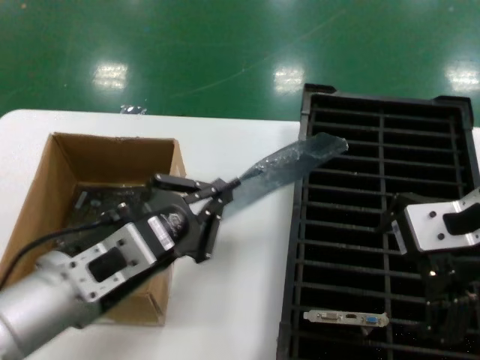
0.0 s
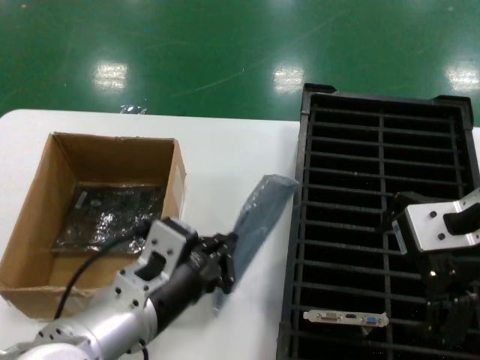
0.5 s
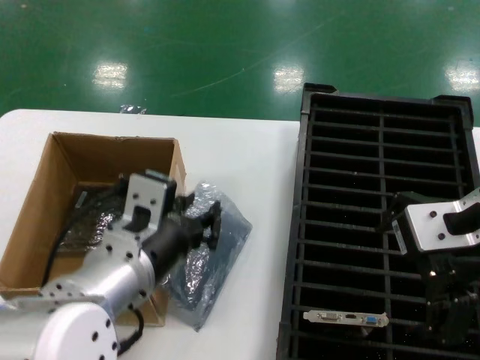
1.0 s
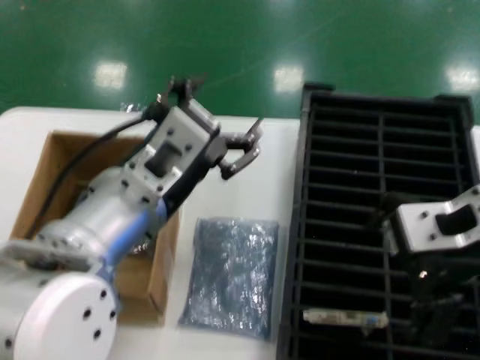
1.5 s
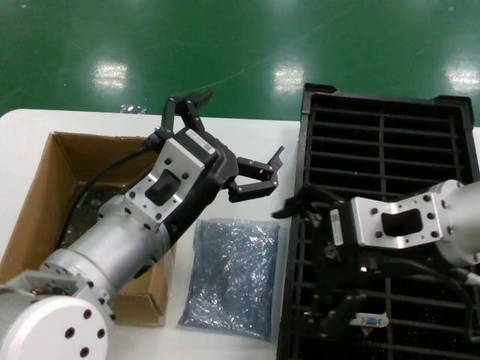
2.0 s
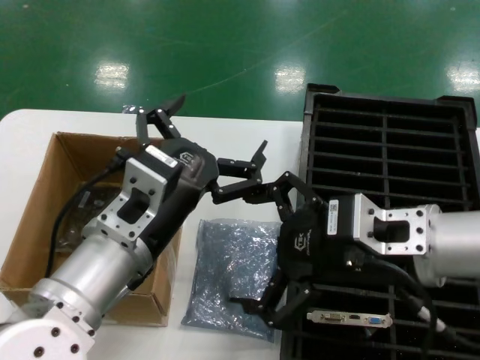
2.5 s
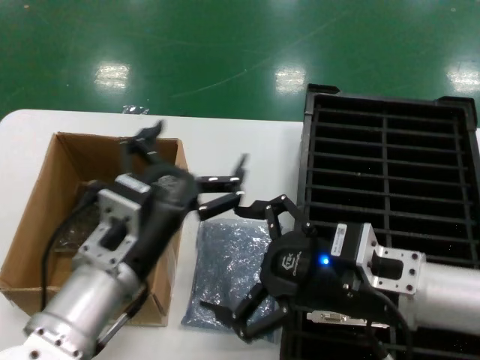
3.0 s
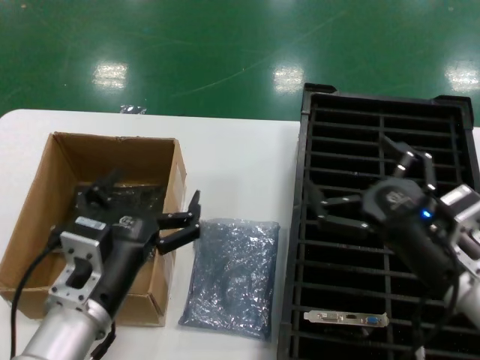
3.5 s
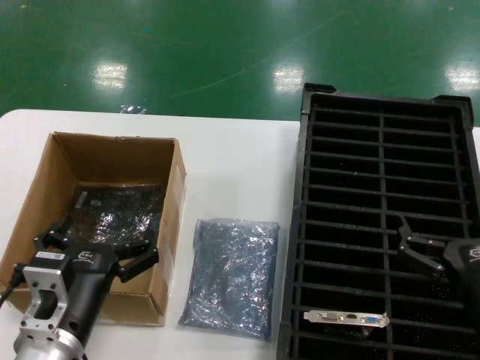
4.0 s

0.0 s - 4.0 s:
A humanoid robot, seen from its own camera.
Task of the whole recording: take out graphics card from box remove packaging put into black container.
0.0 s - 2.0 s: The left hand travels to the right by about 5 cm, and reaches roughly 5 cm upward, then returns.
2.0 s - 4.0 s: The right hand moves downward, about 25 cm; the left hand is displaced downward and to the left by about 20 cm.

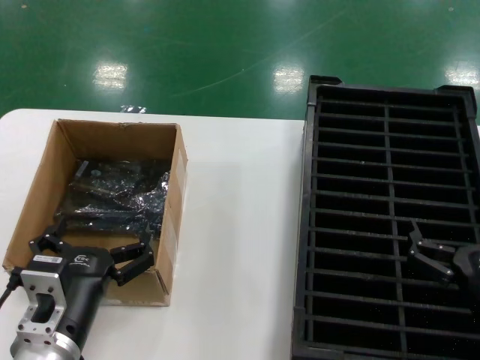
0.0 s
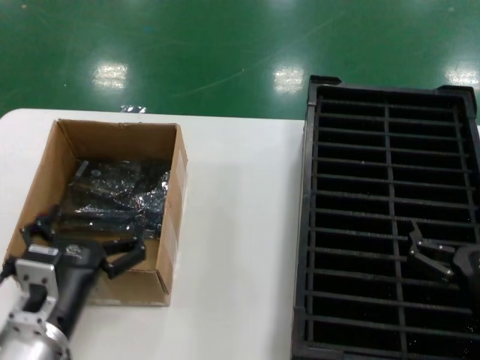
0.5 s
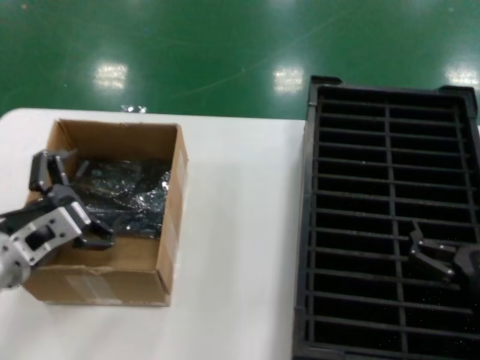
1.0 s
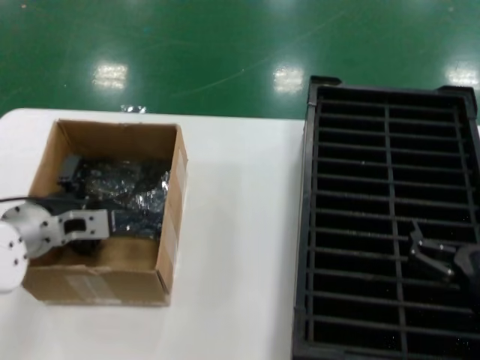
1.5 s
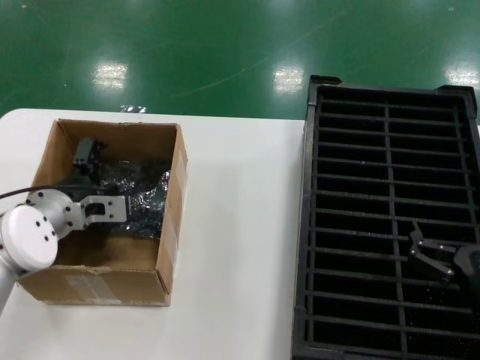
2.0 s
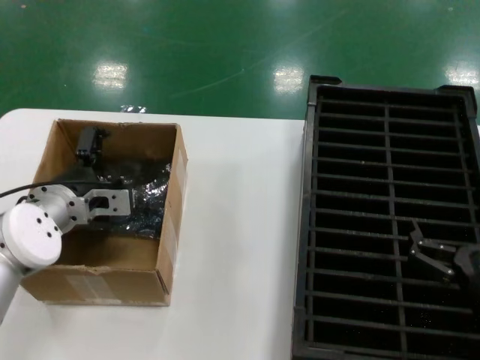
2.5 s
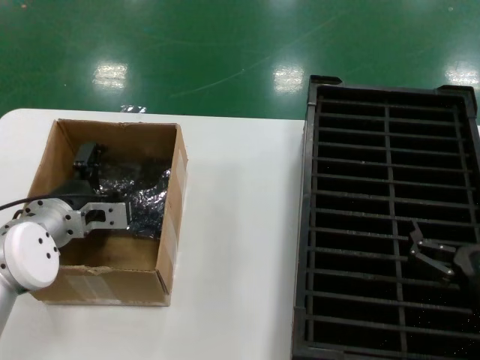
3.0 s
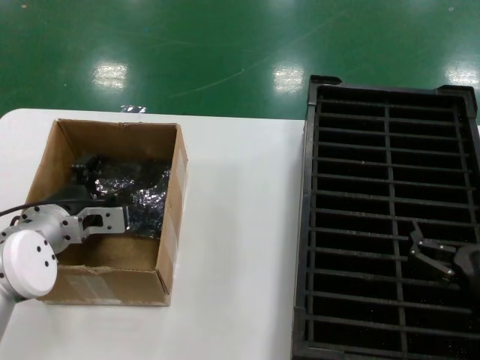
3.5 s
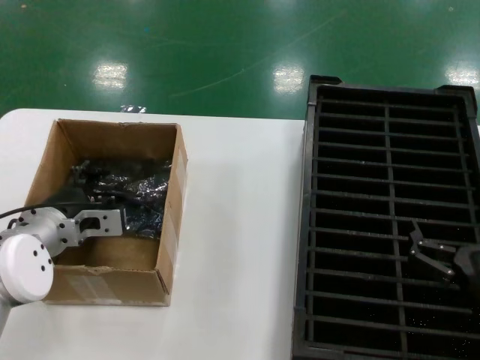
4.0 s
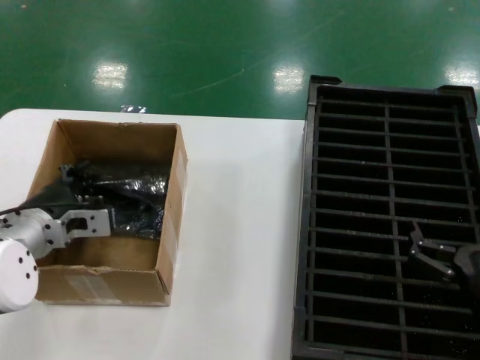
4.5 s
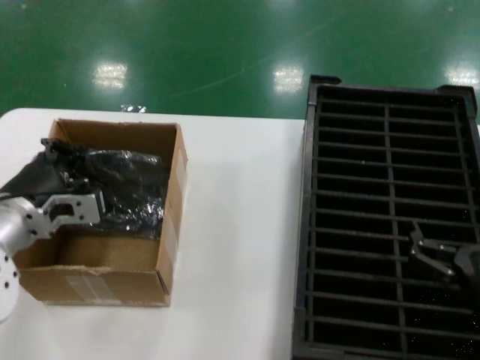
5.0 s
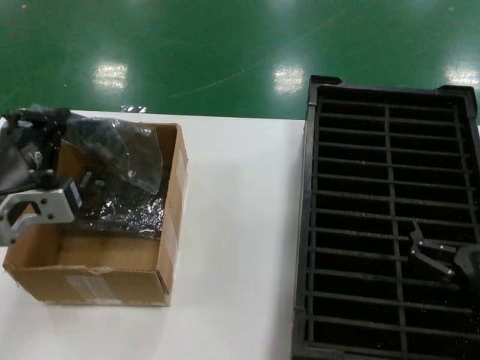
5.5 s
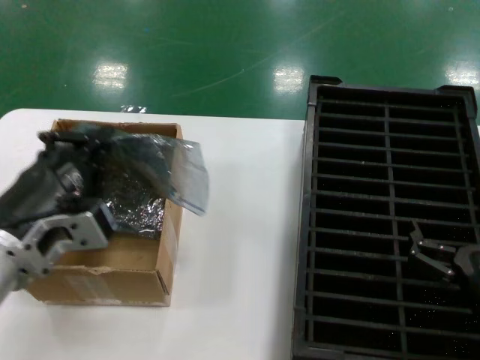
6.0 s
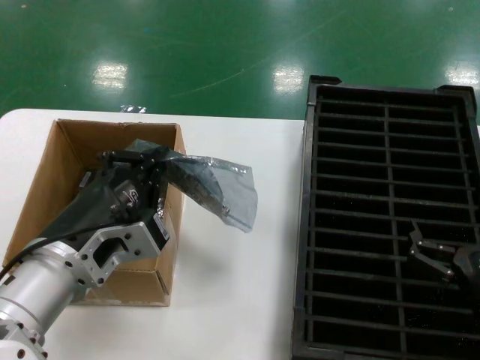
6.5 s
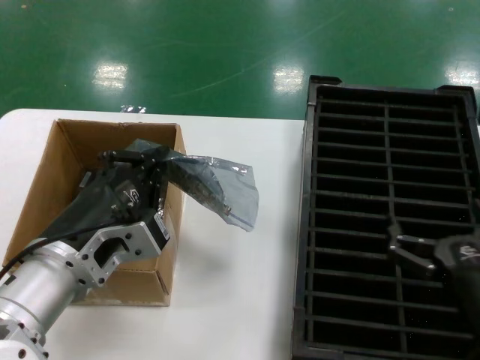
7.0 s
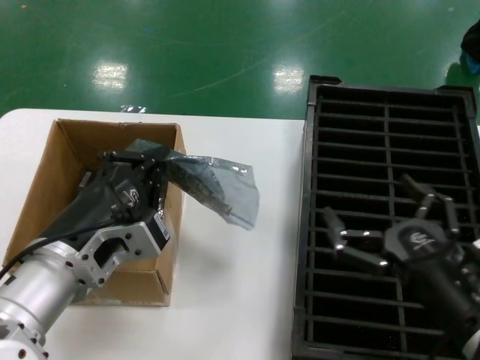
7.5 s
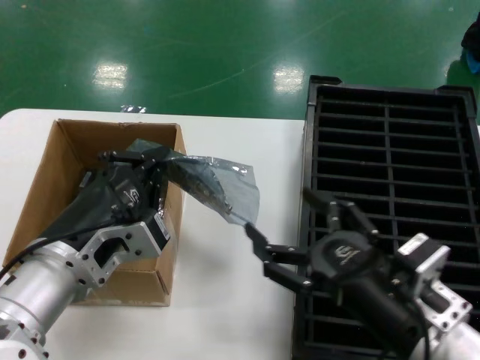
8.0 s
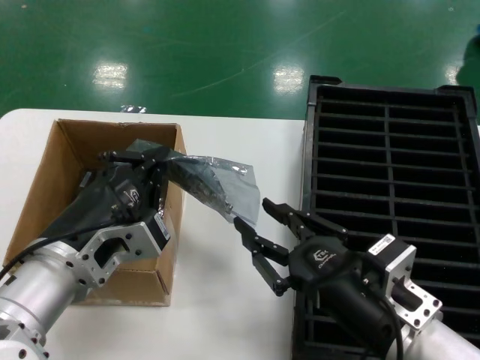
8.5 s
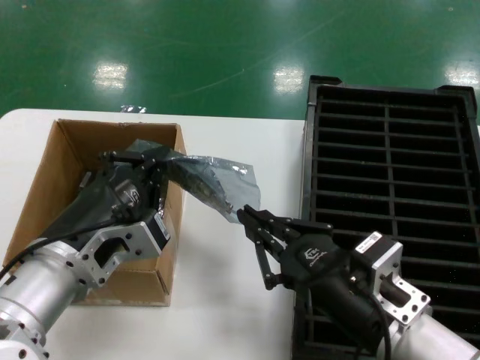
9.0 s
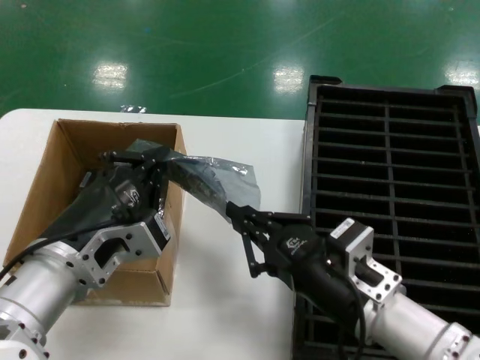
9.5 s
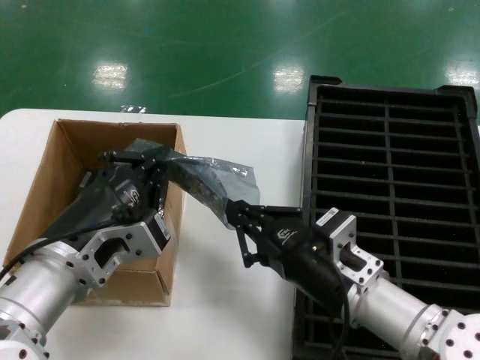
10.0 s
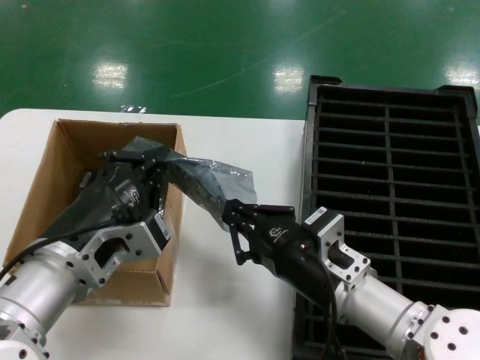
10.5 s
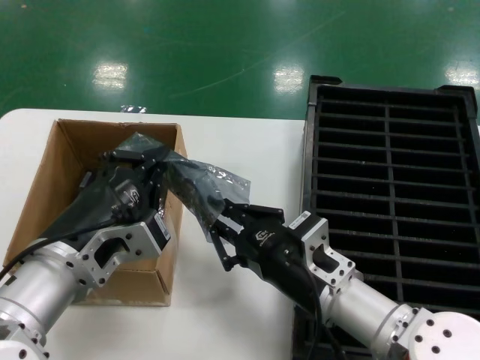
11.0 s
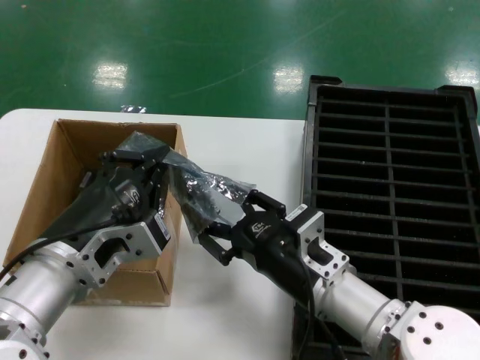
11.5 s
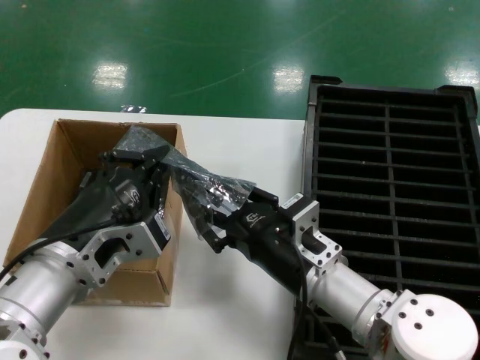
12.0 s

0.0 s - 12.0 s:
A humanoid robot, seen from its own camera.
Task of the whole recording: take out graphics card from box remove packaging put into black container.
Step, 0.0 s - 4.5 s: Grasp the bag.
Step, 5.0 s - 6.5 s: Lift the bag.
0.0 s - 2.0 s: The left hand moves forward, roughly 20 cm.
2.0 s - 4.0 s: The hands stay close to where they were, moving slightly.
4.0 s - 6.0 s: The left hand shifts about 20 cm backward and upward.
6.0 s - 8.0 s: The left hand ends up approximately 5 cm from where it was; the right hand heads to the left and upward, covering approximately 10 cm.
8.0 s - 10.0 s: The right hand is displaced forward and to the left by approximately 10 cm.
10.0 s - 12.0 s: The right hand ends up some 5 cm from where it was.

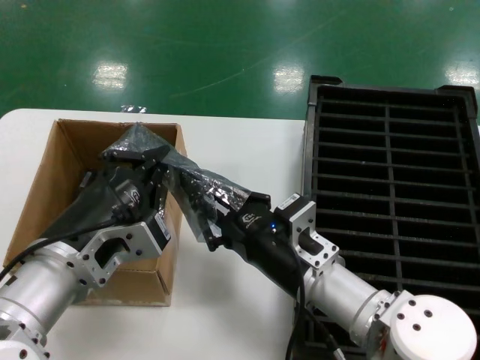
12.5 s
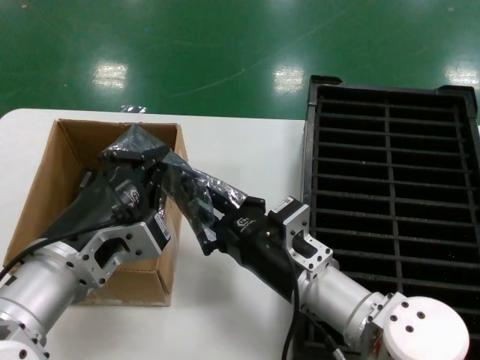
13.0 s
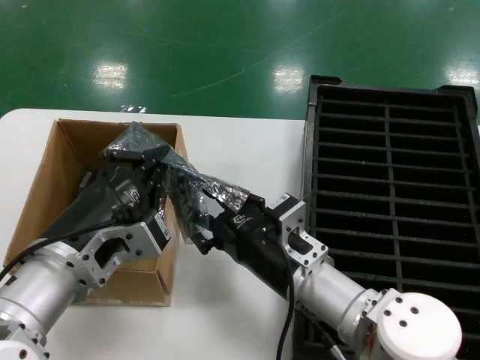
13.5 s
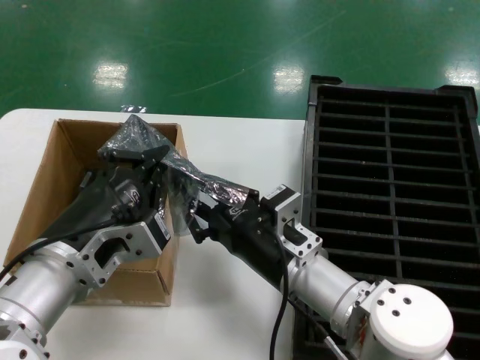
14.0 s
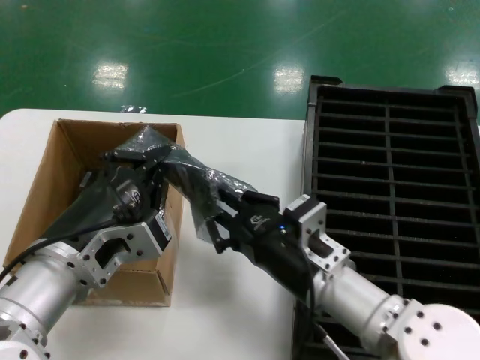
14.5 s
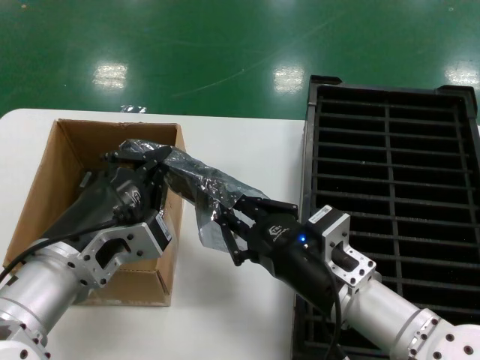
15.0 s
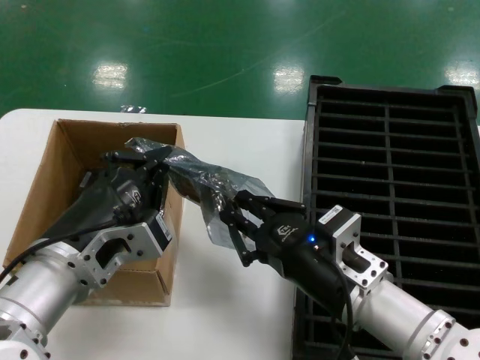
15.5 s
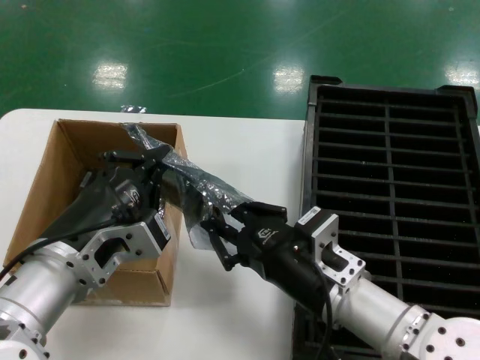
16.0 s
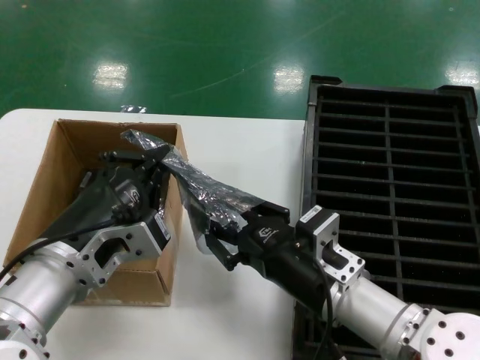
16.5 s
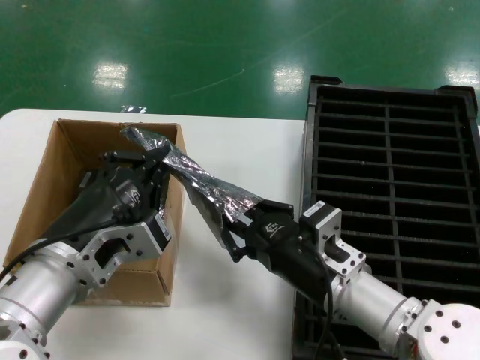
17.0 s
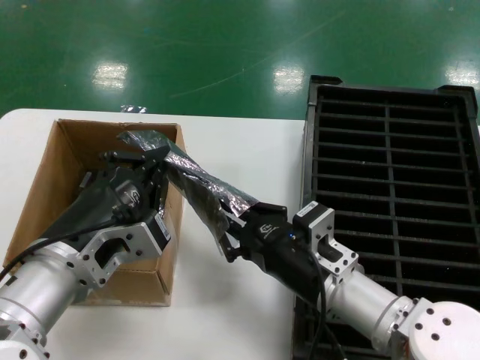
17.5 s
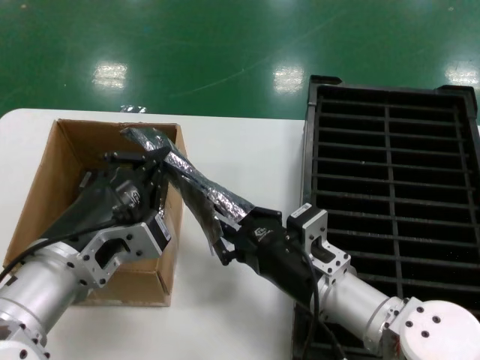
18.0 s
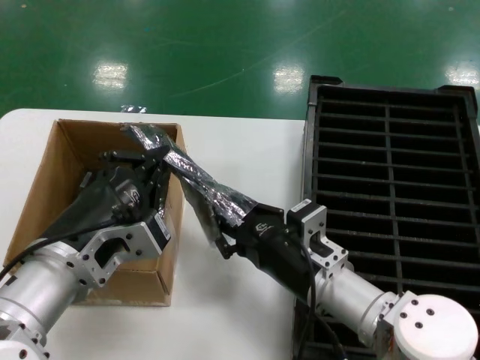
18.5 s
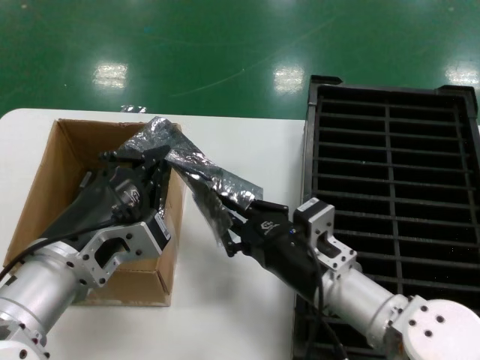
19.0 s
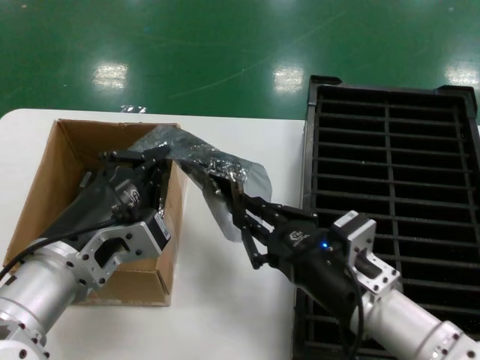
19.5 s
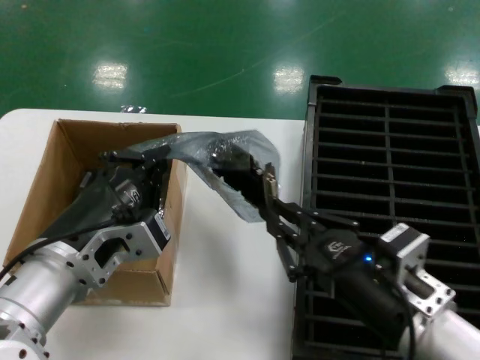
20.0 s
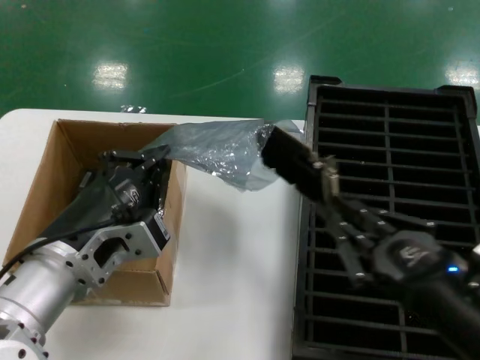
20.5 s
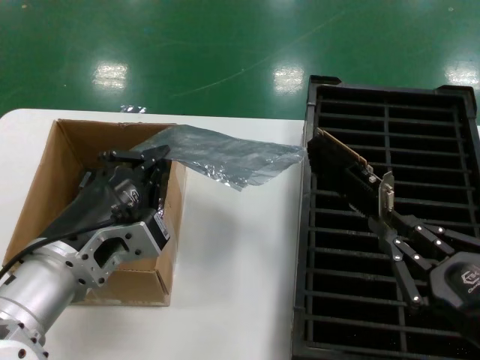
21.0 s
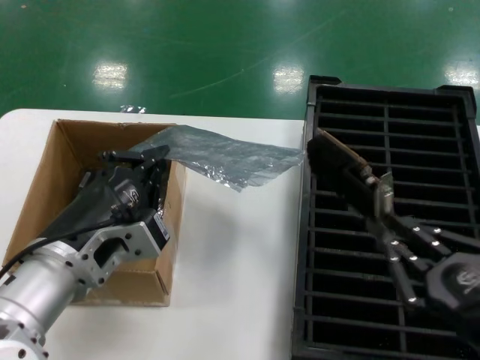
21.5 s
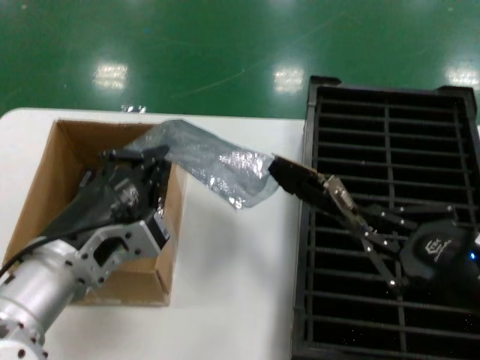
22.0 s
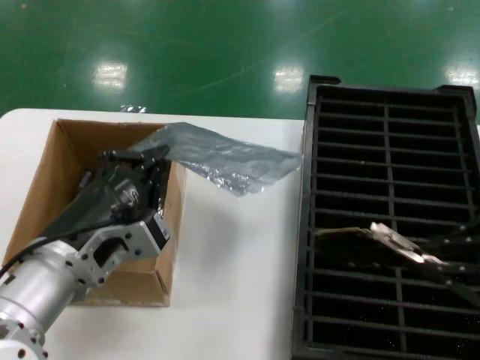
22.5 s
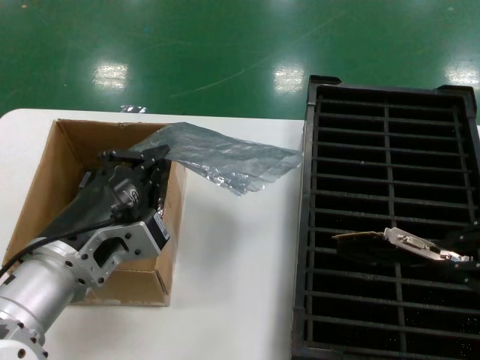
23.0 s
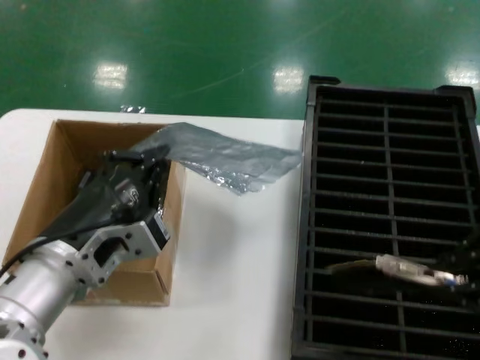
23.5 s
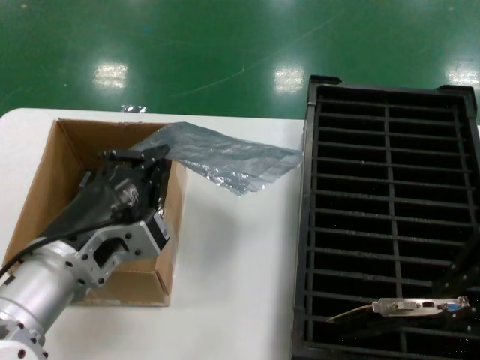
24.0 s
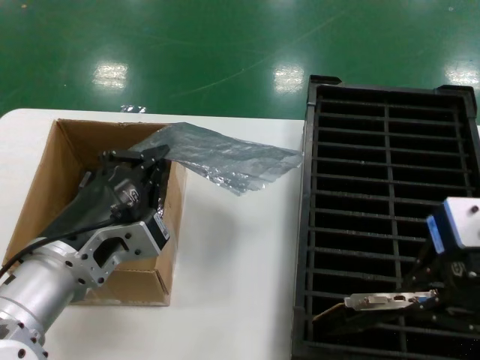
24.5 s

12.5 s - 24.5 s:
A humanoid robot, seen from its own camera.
Task of the whole recording: take out graphics card from box remove packaging put into black container.
Step, 12.5 s - 22.0 s: Take out the hard disk of the bag.
12.5 s - 14.5 s: The hands stay close to where they were, moving slightly.
14.5 s - 18.5 s: The hands stay close to where they were, moving slightly.
18.5 s - 20.5 s: The right hand goes some 20 cm backward, to the right and upward.
20.5 s - 22.5 s: The right hand travels upward by approximately 15 cm.
22.5 s - 24.5 s: The right hand heads to the left, covering some 5 cm.
